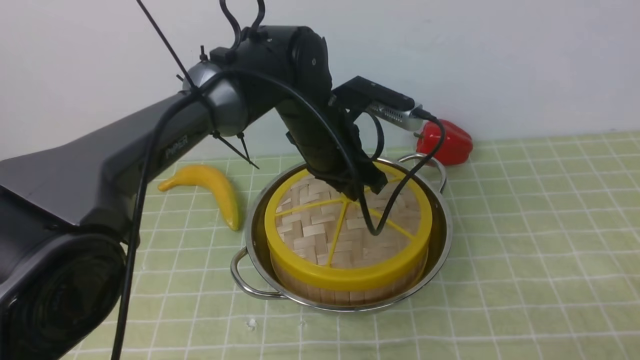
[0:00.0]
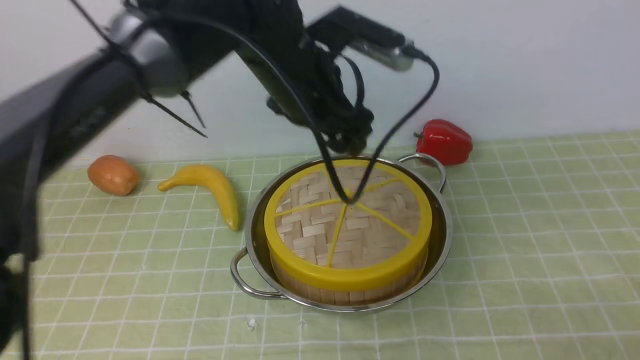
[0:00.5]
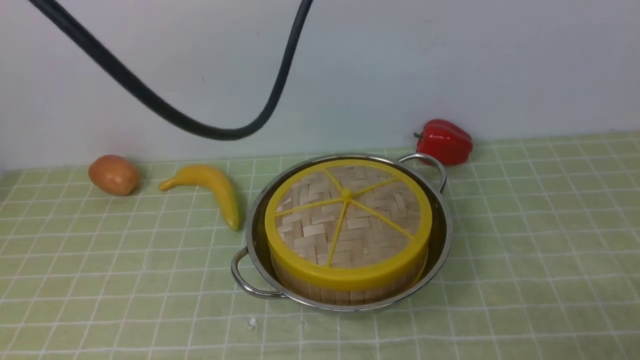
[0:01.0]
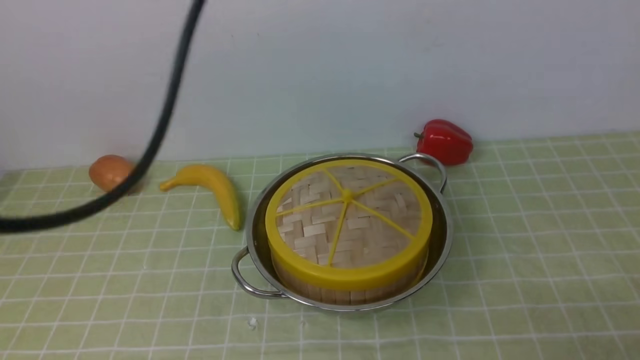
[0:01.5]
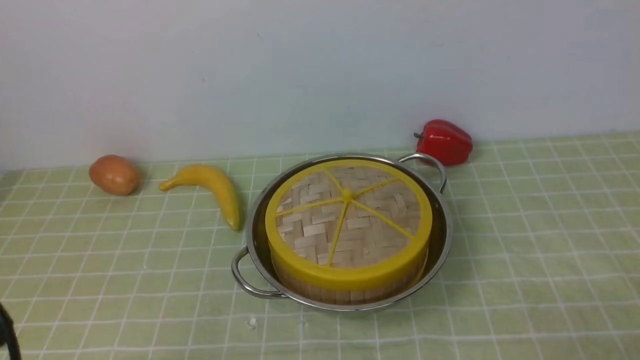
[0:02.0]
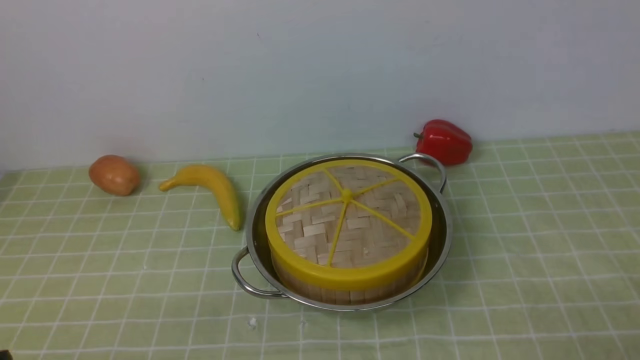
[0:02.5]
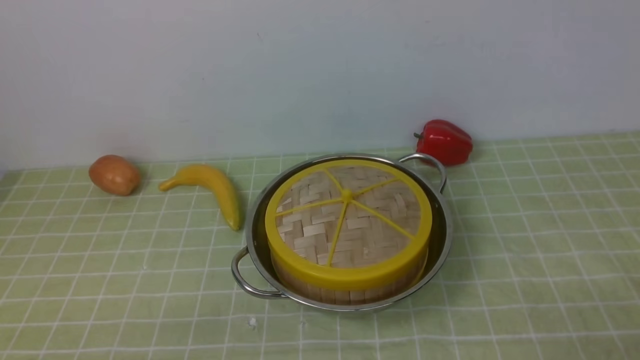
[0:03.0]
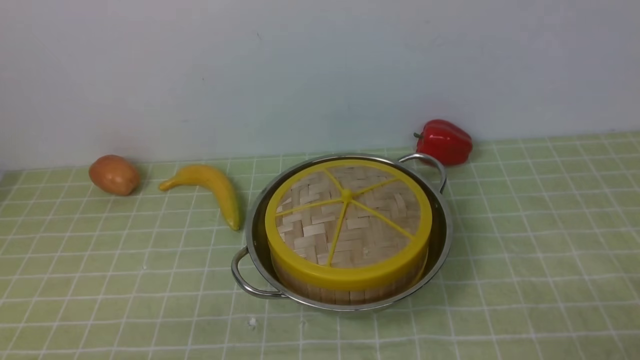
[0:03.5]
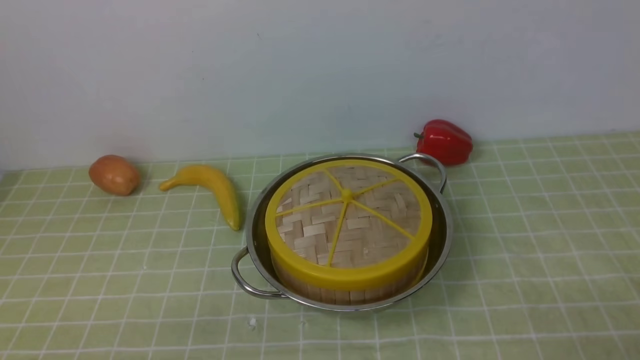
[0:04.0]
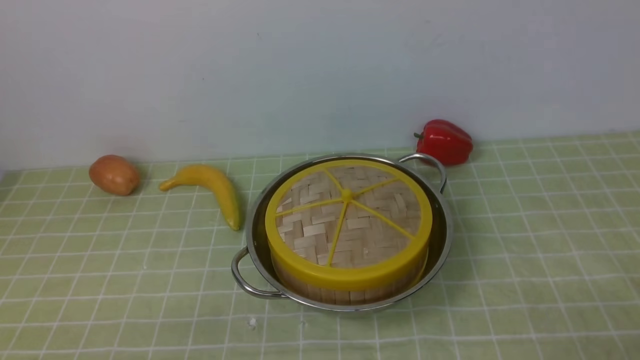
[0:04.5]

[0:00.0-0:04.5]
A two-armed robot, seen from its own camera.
Task of the whole recording: place the steamer in the pot on the green tablecloth, and put the lid on the steamer.
0:00.0 to 0:02.0: The left gripper is displaced backward and to the left by about 40 cm, and opens, then closes again.
